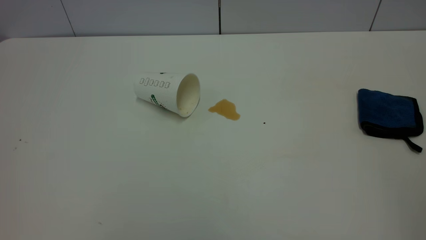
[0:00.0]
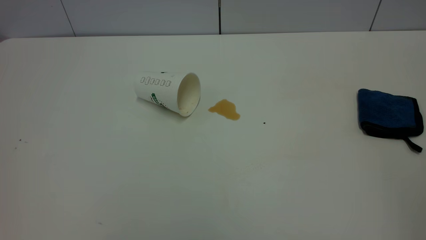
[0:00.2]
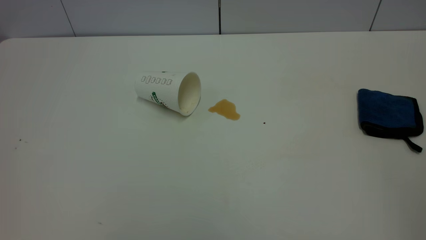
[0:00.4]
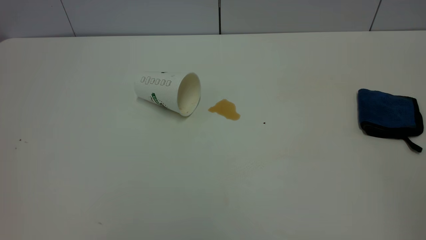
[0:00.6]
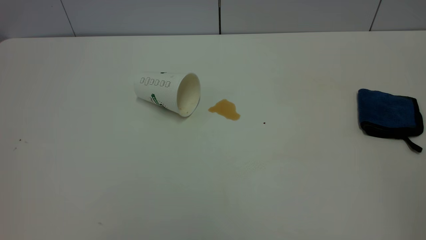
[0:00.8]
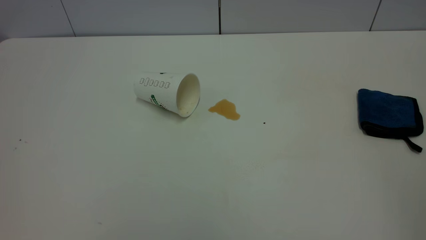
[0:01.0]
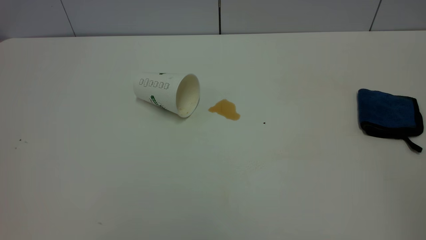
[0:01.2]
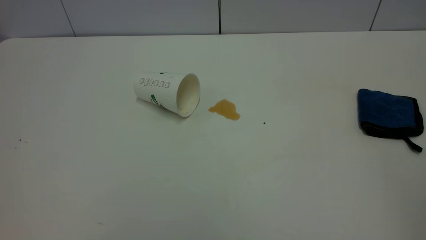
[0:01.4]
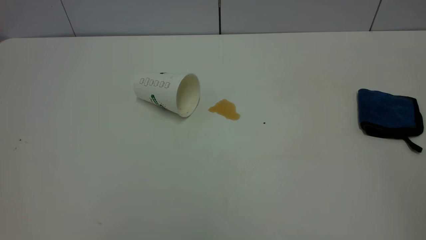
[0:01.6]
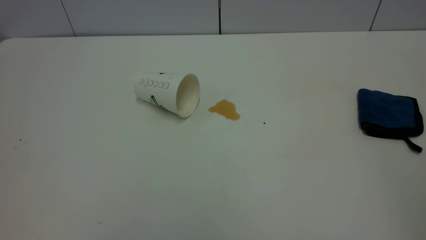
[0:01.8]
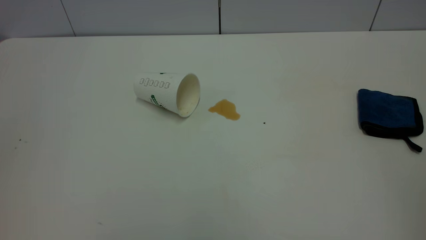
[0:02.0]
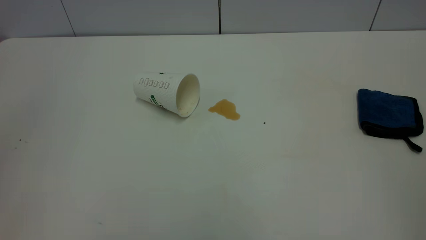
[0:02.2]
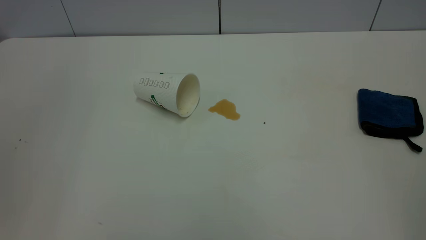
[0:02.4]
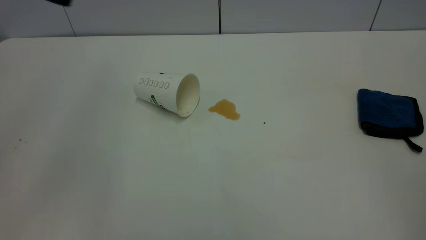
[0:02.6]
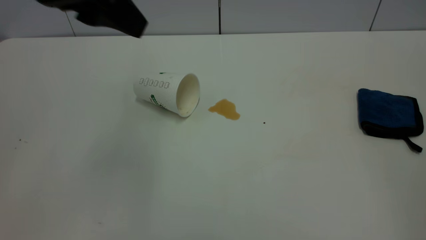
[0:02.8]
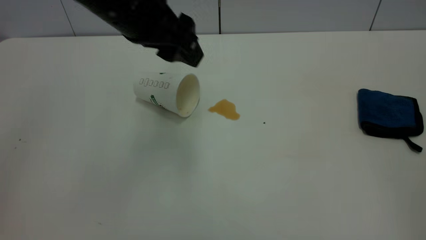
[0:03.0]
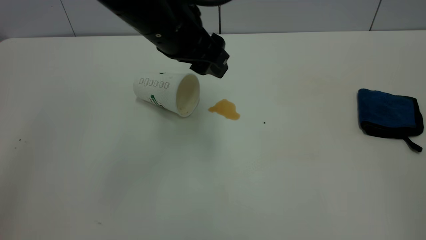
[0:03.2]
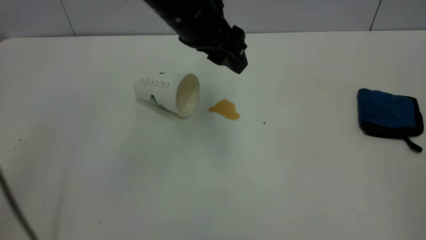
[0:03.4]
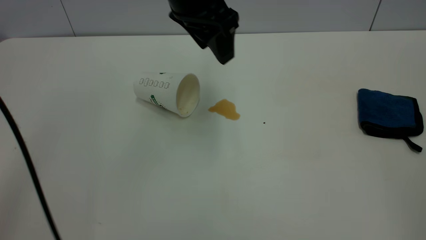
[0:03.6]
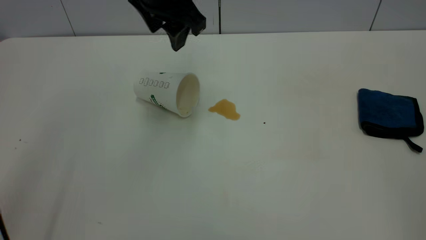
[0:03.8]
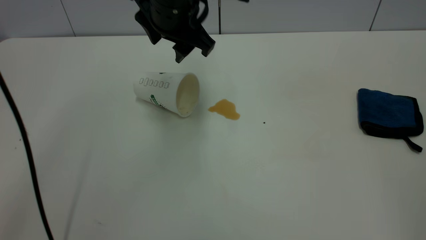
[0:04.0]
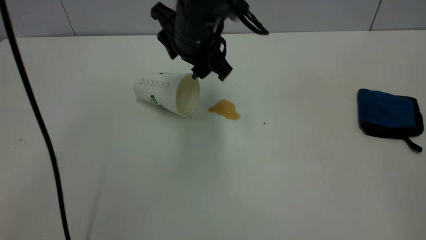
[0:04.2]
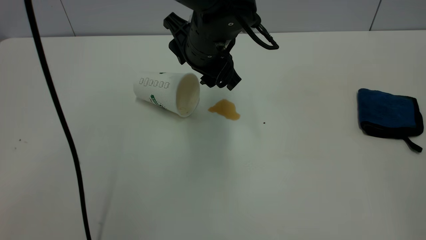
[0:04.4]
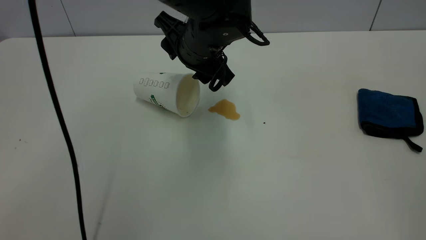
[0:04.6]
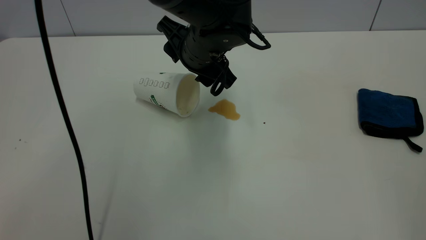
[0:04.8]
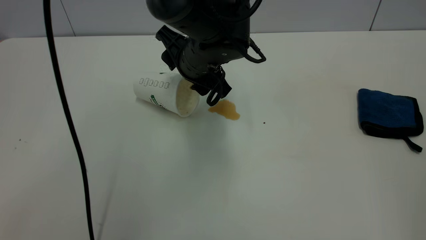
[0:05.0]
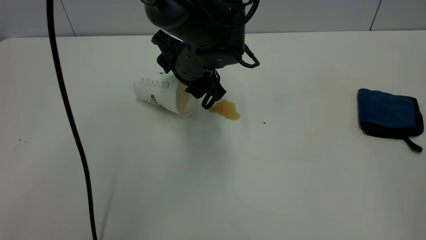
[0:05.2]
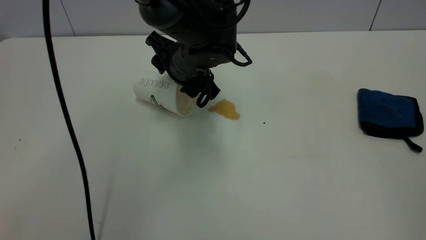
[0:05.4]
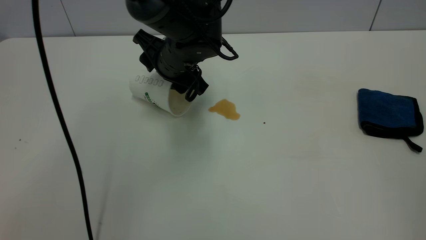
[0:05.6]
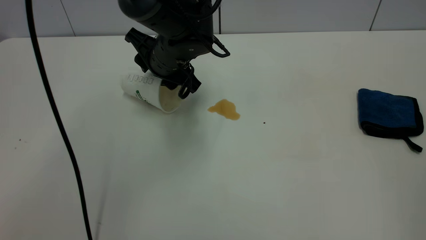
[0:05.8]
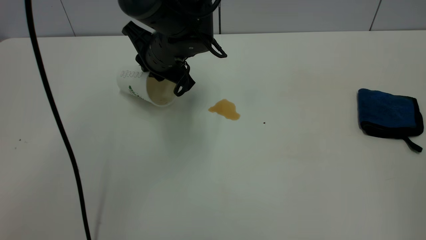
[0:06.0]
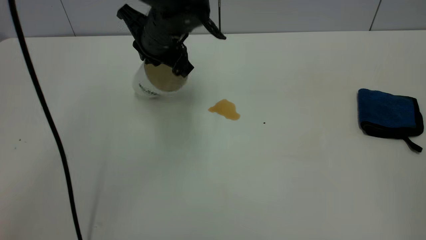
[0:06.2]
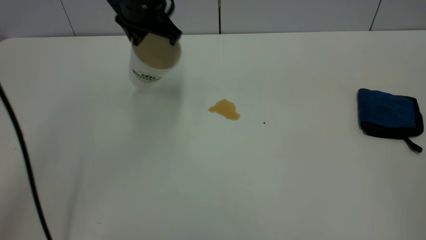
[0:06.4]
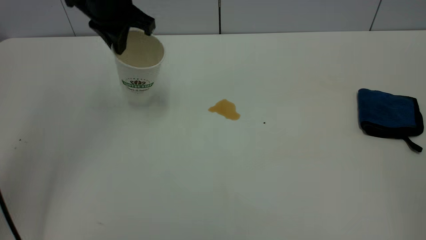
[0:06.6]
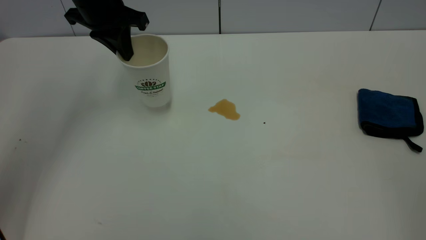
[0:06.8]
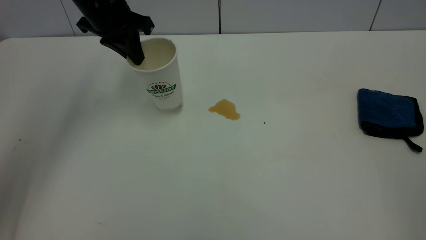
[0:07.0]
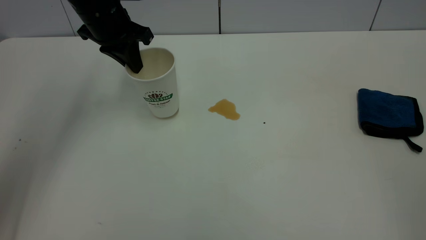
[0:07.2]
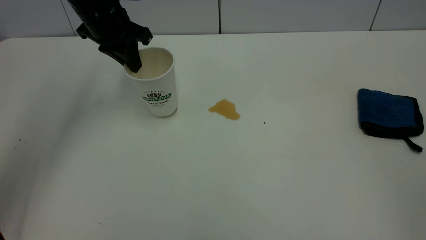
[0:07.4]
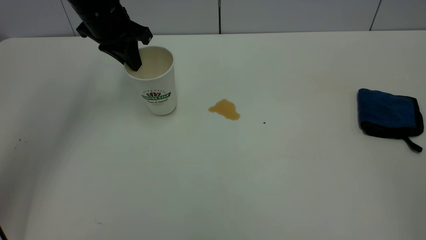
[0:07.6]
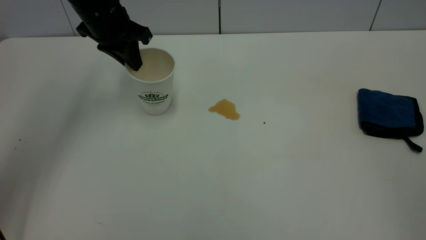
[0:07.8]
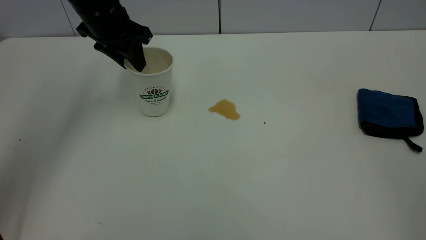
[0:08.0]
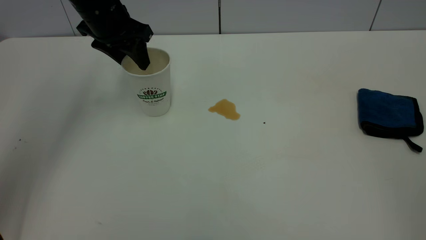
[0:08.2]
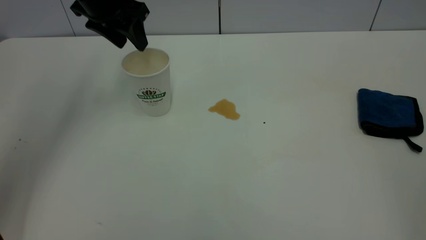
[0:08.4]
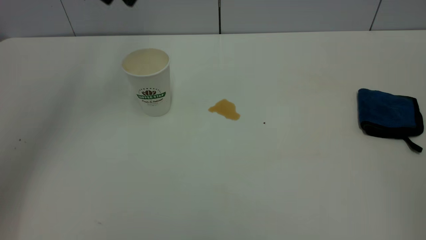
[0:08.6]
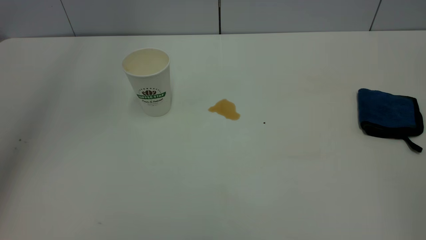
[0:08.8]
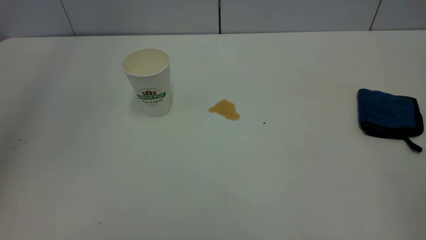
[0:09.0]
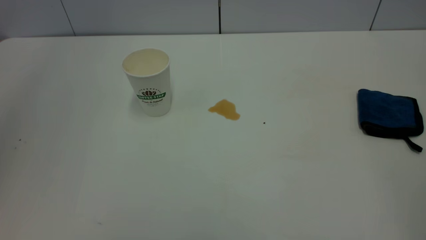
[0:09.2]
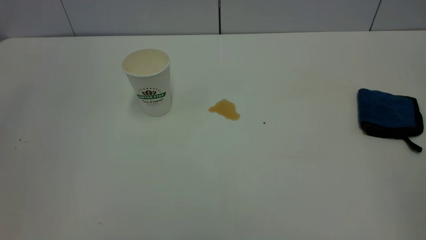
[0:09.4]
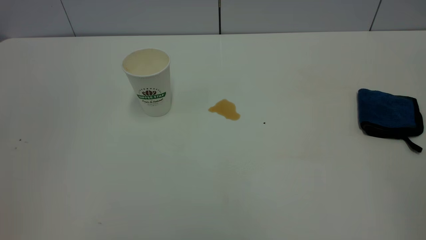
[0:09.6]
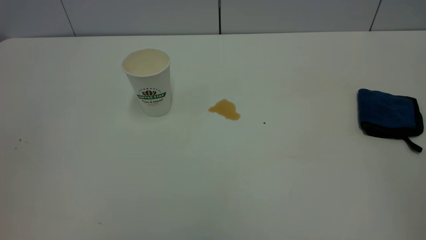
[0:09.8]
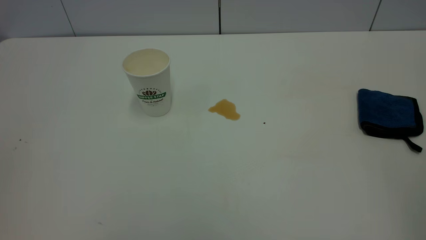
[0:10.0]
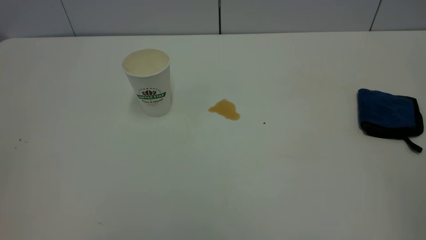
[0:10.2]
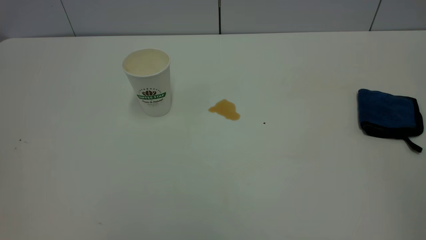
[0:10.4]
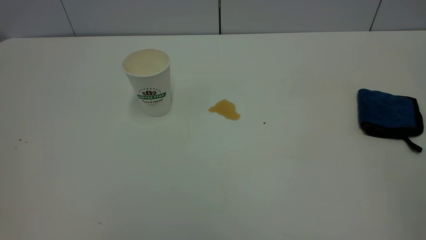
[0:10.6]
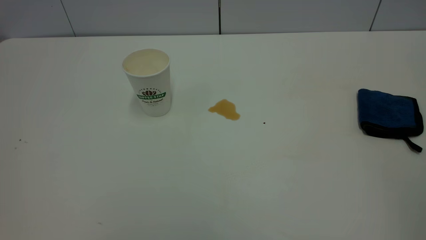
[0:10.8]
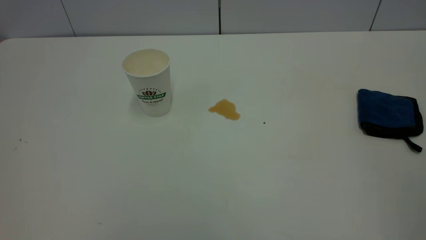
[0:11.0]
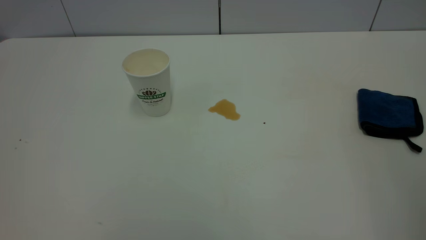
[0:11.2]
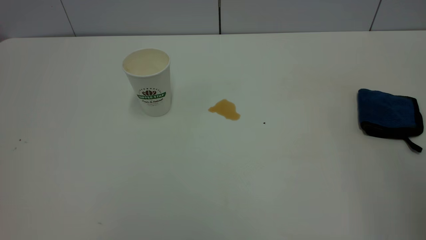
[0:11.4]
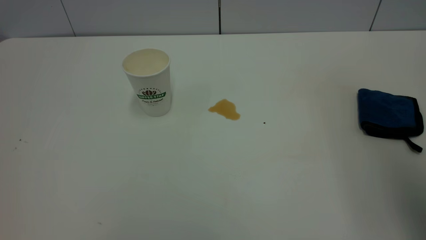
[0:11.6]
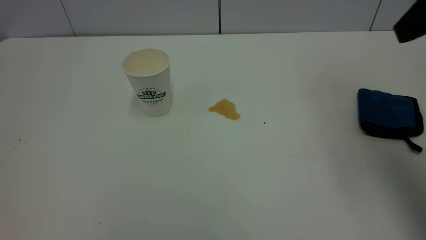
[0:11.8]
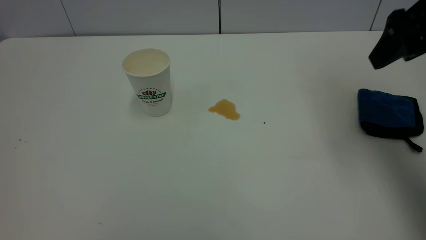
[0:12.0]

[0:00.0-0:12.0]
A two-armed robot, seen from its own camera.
Task of the whole recording: the left gripper pick up the fallen cup and place it upright, the right gripper grasp the blue rag and wipe the tea stain on the table, the right gripper put the blue rag back in its original position.
Step, 0:00.0 to 0:08.4: Stand the paper cup upright.
0:00.0 to 0:01.6: Both grippers stay put.
0:01.6 to 0:03.0: The left gripper moves forward and to the right, about 40 cm.
0:03.0 to 0:04.4: The left gripper goes some 15 cm to the right, downward and forward.
0:04.4 to 0:06.0: The left gripper goes about 5 cm to the left, and closes up.
0:06.0 to 0:07.6: The left gripper travels to the left, upward and forward by approximately 15 cm.
0:07.6 to 0:09.0: The left gripper heads upward and backward, covering some 35 cm, and opens.
0:10.4 to 0:12.0: The right gripper moves forward, about 35 cm.

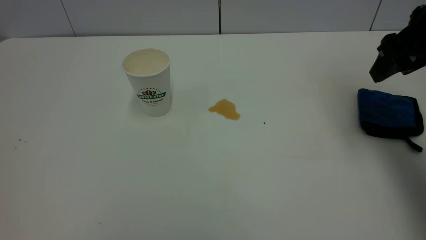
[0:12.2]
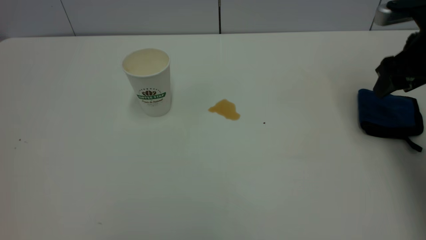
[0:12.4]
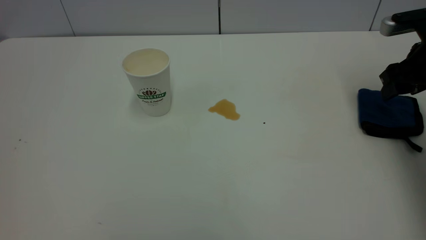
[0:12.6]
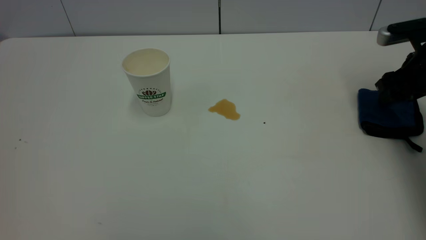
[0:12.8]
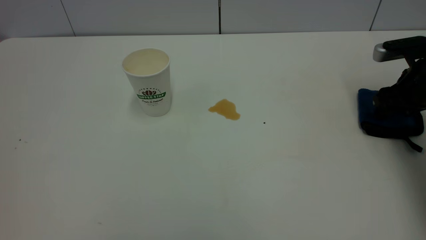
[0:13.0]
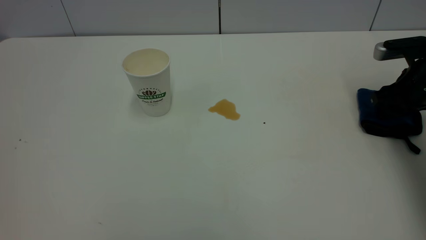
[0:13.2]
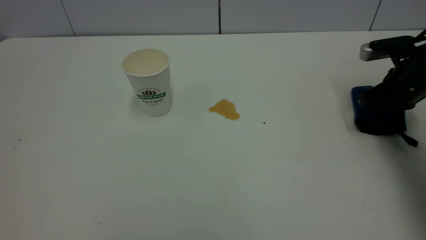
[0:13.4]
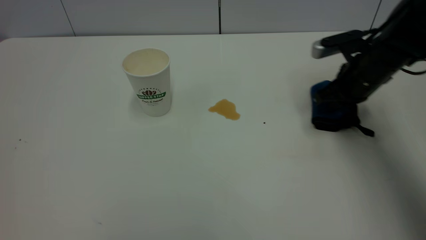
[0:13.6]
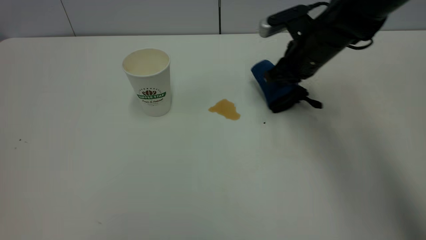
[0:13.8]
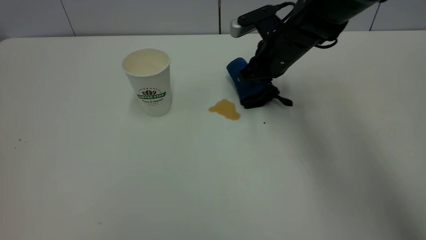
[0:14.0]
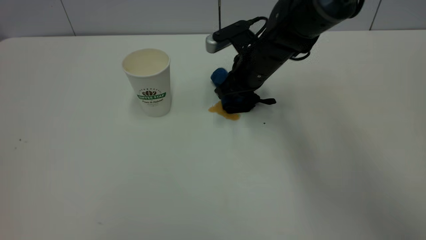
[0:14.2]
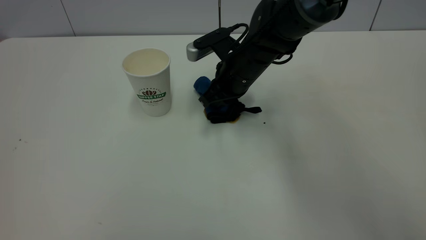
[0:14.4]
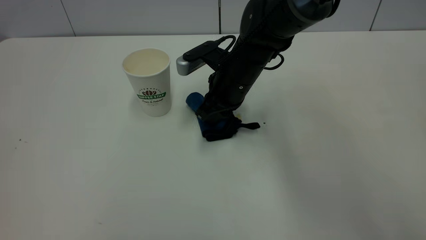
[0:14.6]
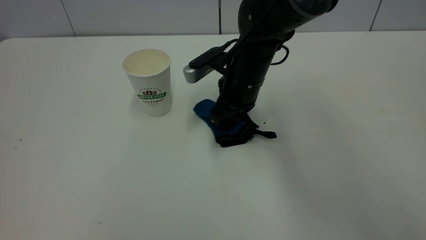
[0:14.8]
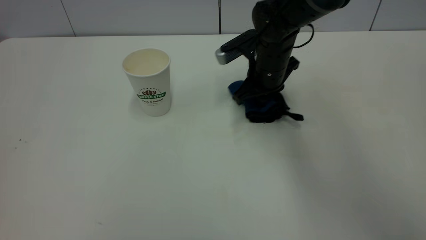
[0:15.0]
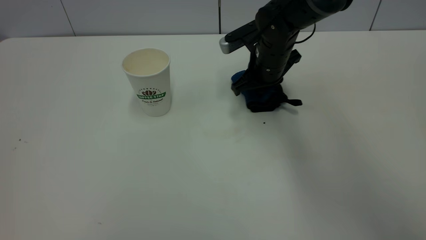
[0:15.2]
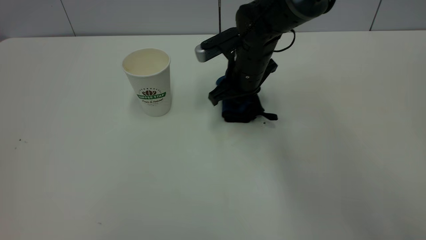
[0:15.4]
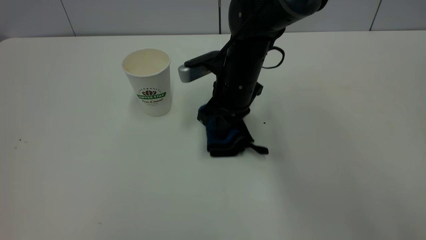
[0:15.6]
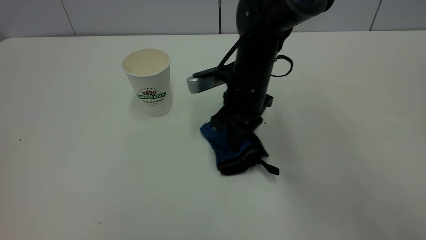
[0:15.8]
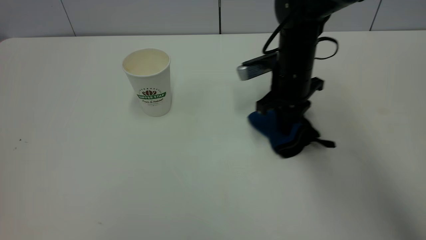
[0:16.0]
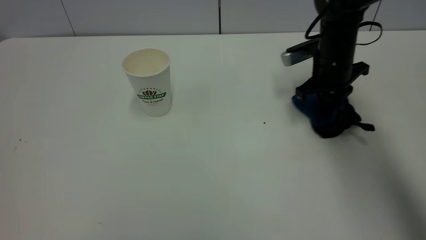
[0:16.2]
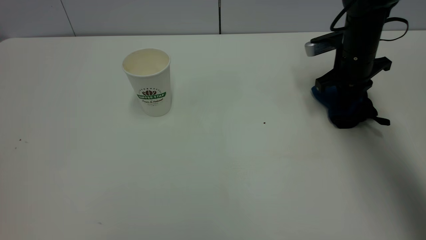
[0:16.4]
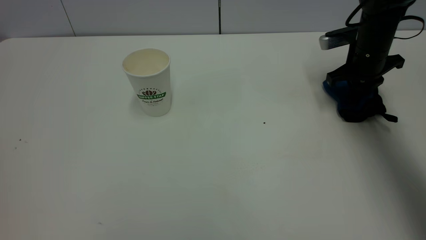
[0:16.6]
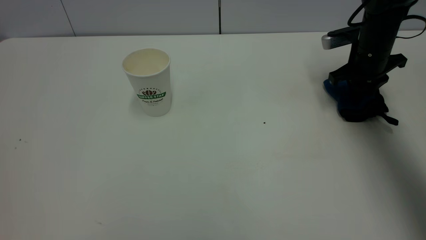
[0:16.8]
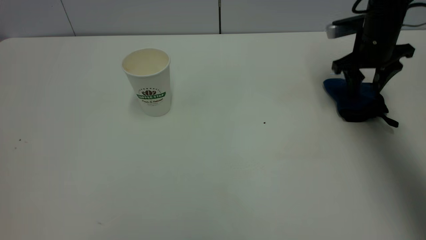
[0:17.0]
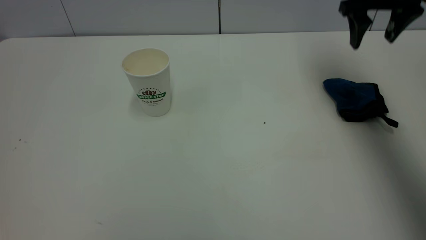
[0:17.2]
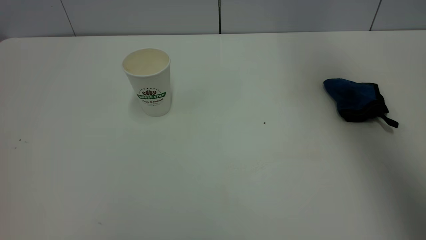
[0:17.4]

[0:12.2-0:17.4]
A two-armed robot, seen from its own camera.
Task of the whole recording: the left gripper pick up the fallen cup and place it upright, the right gripper grasp the blue rag and wipe the tea stain on the table, the right gripper put the blue rag back in its original position.
Step, 0:12.2 to 0:17.0: Wipe the stains off the table with a rag.
0:12.2 to 0:14.0: The right gripper shifts approximately 25 cm to the left, forward and downward, and closes its fingers.
0:14.0 to 0:15.6: The right gripper goes left and right, approximately 10 cm each way, reversing 2 times.
0:15.6 to 0:17.4: The right gripper moves upward and to the right, roughly 35 cm, and opens.
